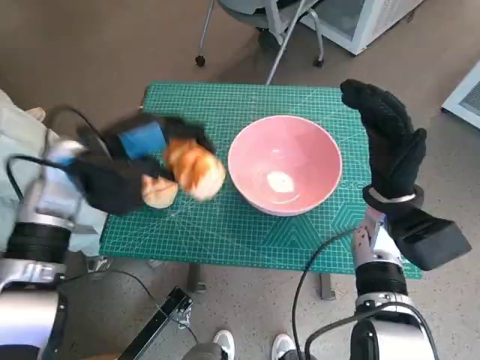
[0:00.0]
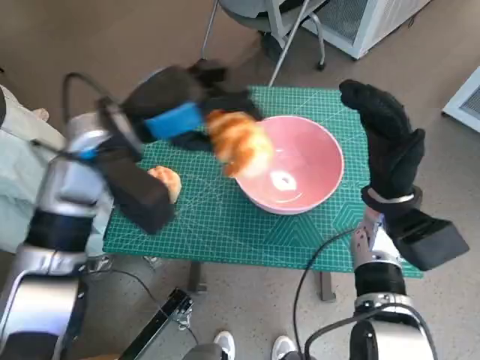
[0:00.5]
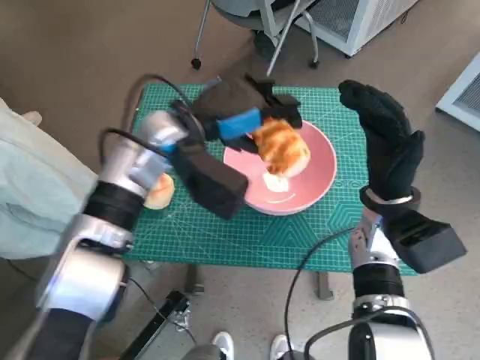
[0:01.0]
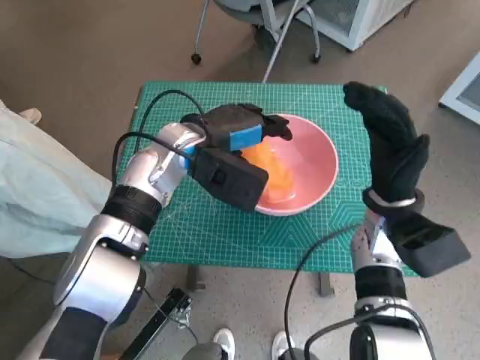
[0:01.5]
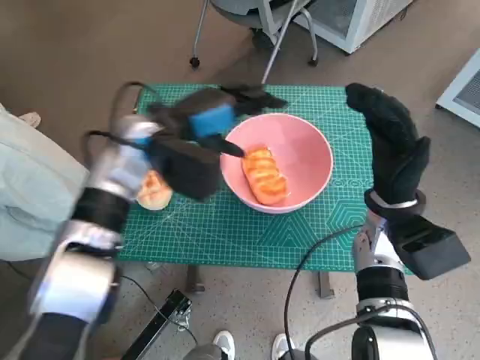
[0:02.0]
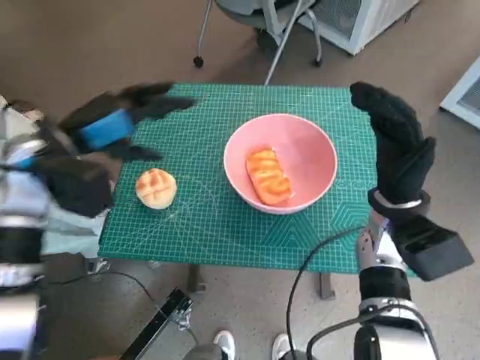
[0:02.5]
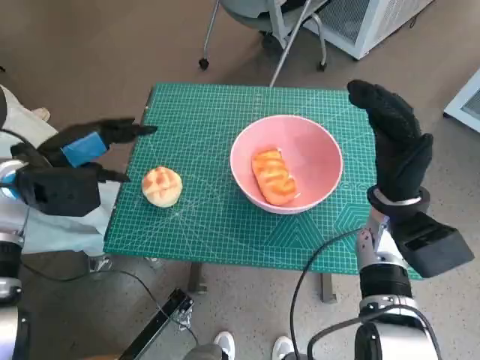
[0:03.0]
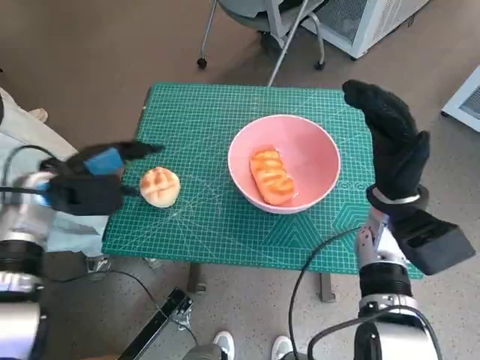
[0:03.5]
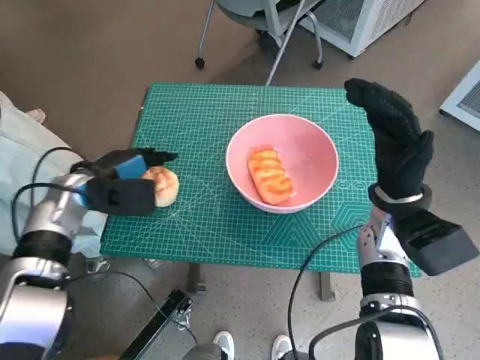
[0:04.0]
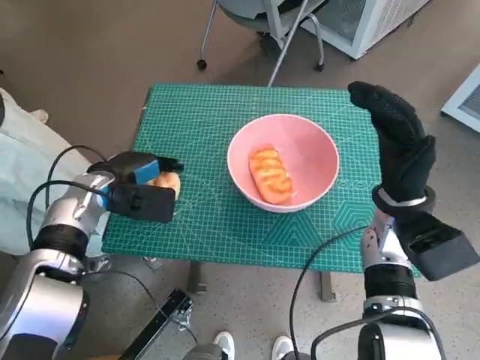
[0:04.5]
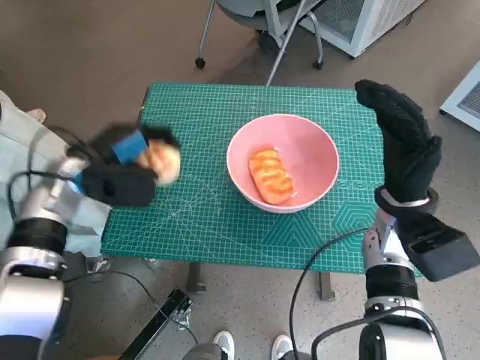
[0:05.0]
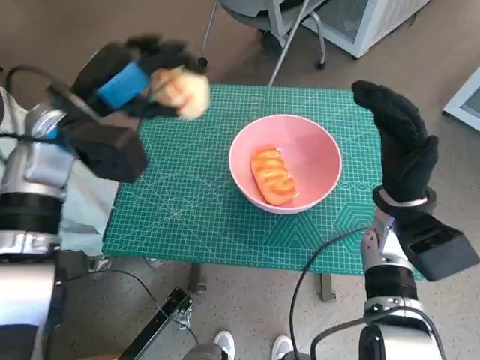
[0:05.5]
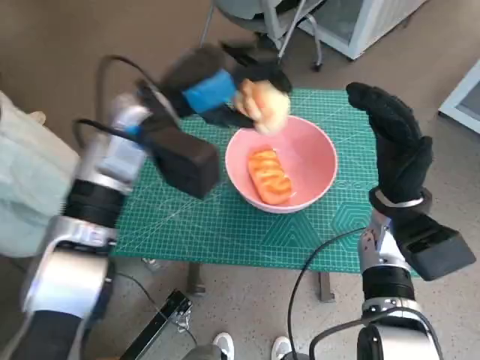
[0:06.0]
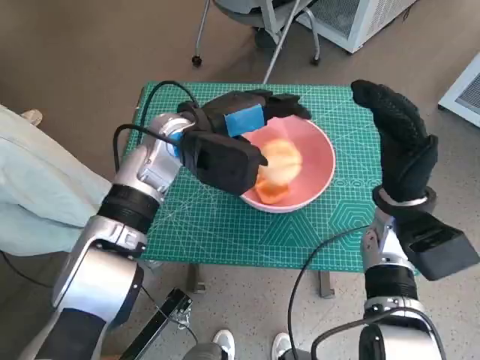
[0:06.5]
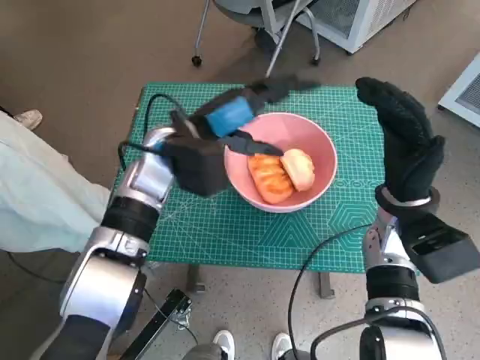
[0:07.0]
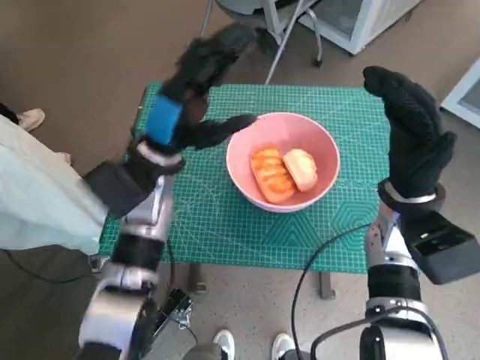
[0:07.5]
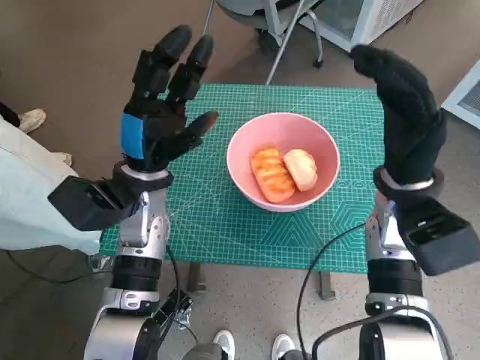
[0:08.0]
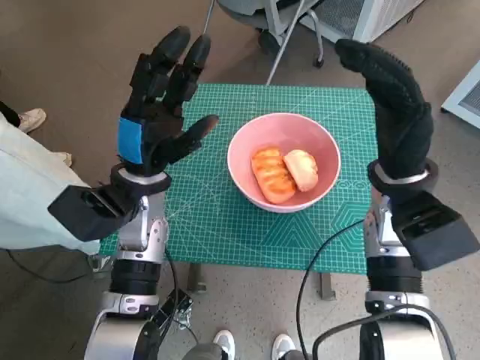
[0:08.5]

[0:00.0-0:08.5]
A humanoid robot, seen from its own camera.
Task of the whole recording: Push the bowl to the center of the table and put the bread into the bowl.
Step, 0:00.0 to 0:01.5: Place the long bread in pink bowl with left hand.
Step, 0:02.0 to 0:04.5: Grasp the round bread with left hand.
Step, 0:05.0 to 0:06.0: Place the round bread in pink bowl with left hand.
0:00.0 to 0:02.0: The left hand heads to the right, covering approximately 10 cm.
0:02.0 to 0:04.0: The left hand moves to the left and downward, roughly 15 cm.
0:04.0 to 0:06.5: The left hand is displaced to the right and upward by about 20 cm.
0:06.5 to 0:08.5: The left hand shifts roughly 10 cm to the left, backward and downward. Meanwhile the right hand moves upward, roughly 5 cm.

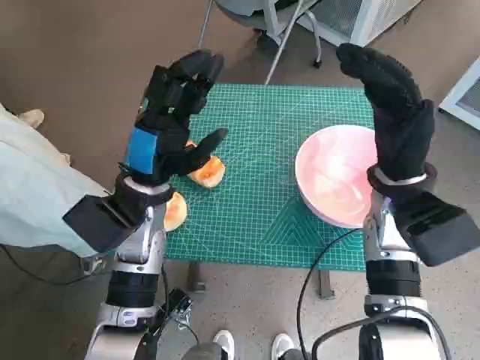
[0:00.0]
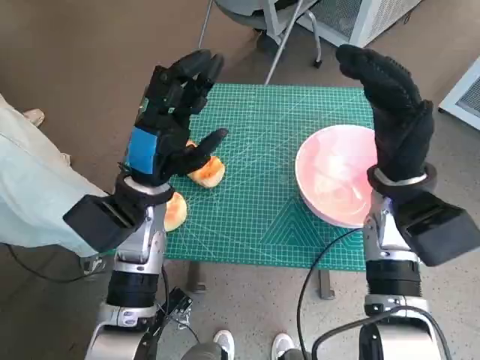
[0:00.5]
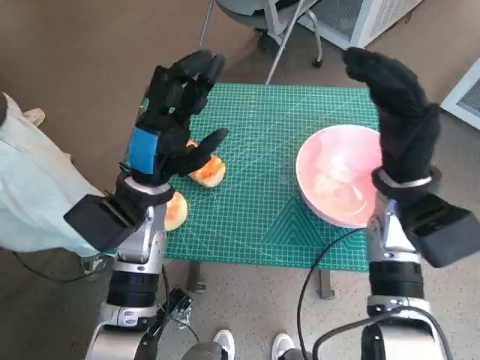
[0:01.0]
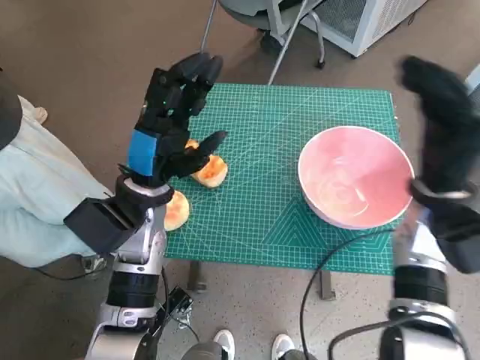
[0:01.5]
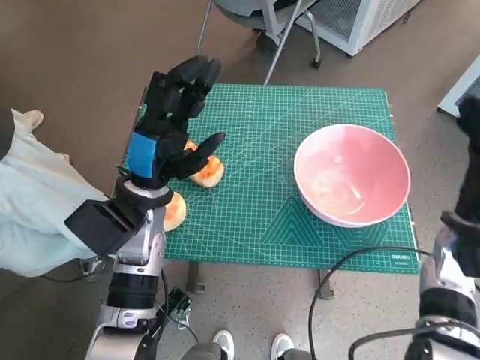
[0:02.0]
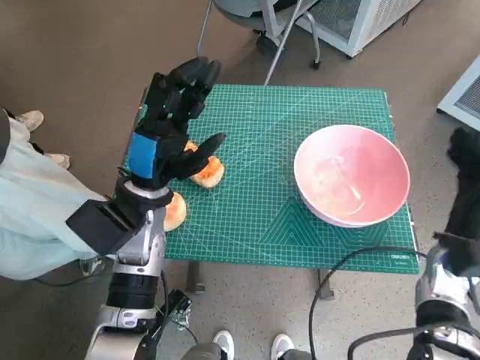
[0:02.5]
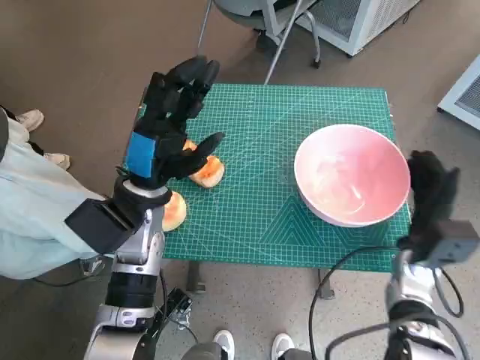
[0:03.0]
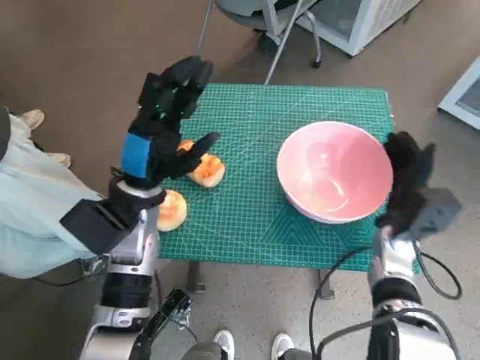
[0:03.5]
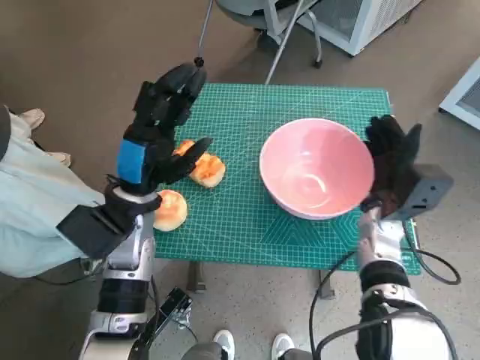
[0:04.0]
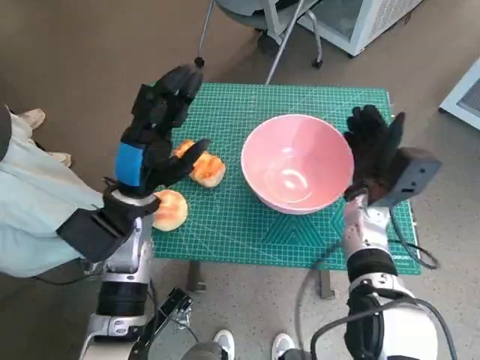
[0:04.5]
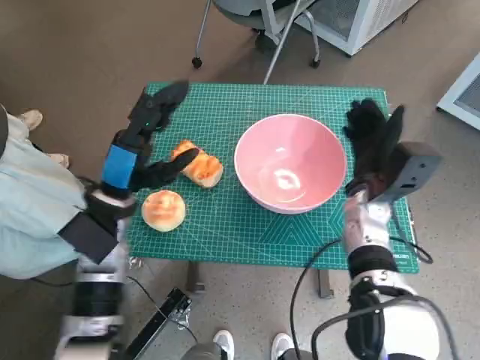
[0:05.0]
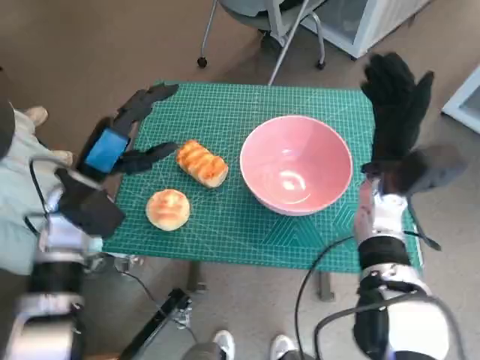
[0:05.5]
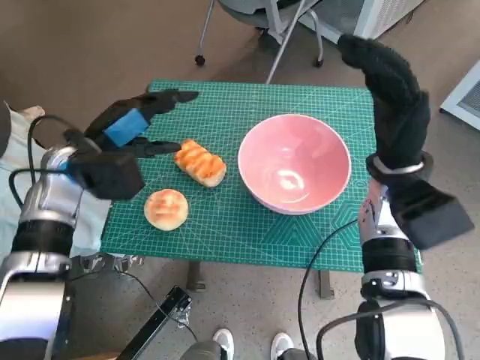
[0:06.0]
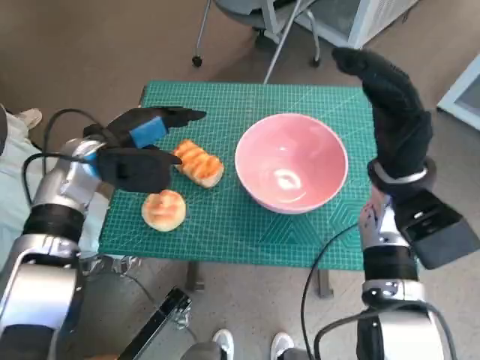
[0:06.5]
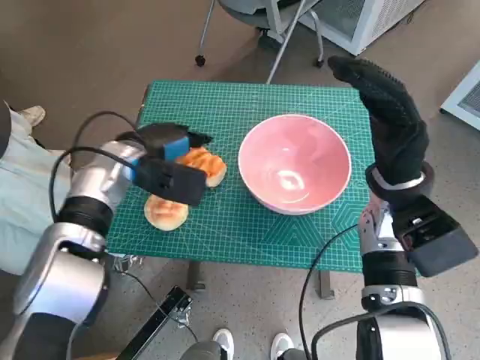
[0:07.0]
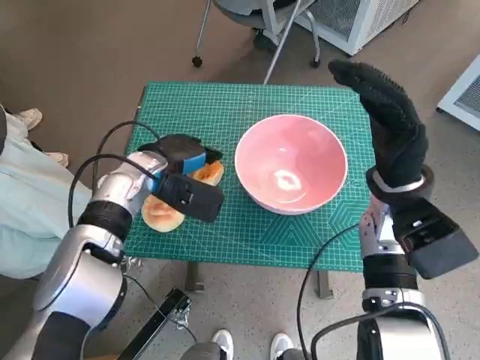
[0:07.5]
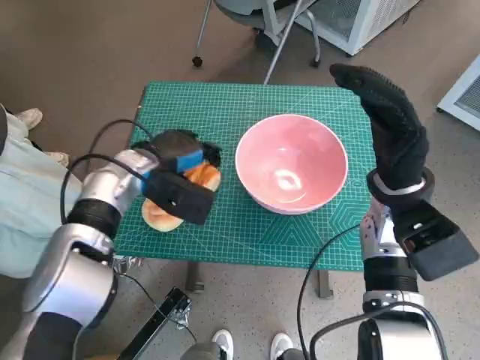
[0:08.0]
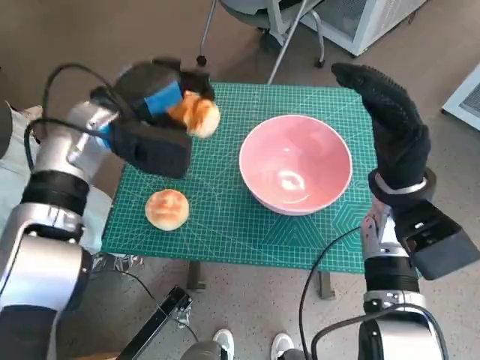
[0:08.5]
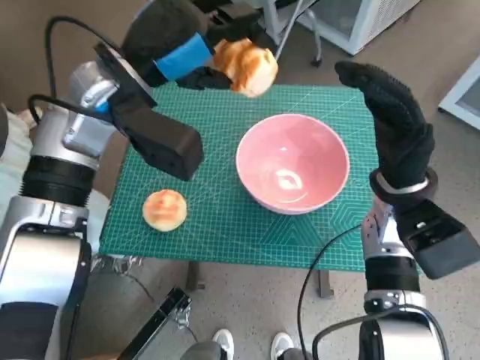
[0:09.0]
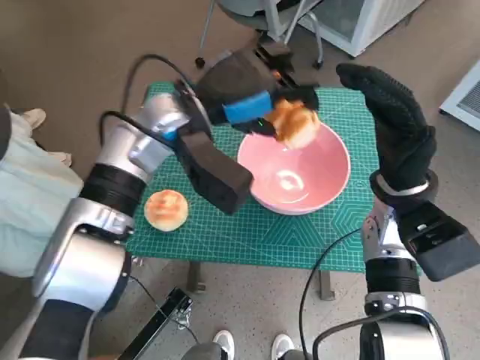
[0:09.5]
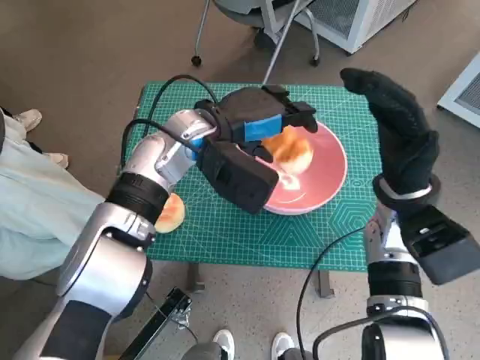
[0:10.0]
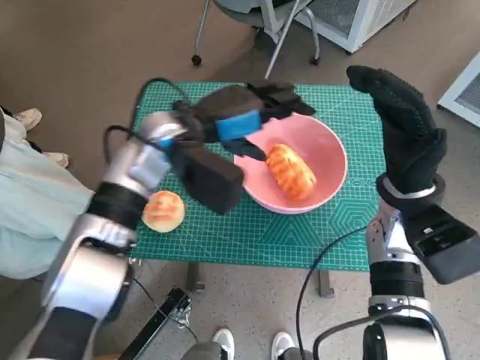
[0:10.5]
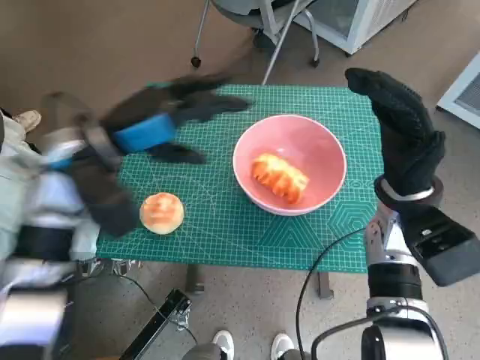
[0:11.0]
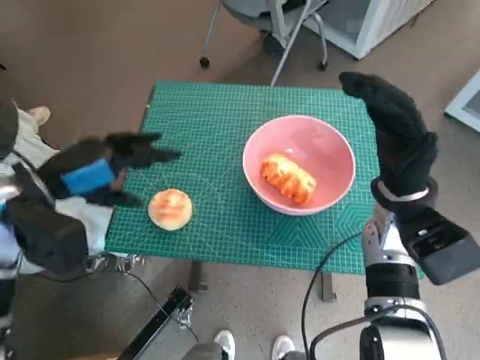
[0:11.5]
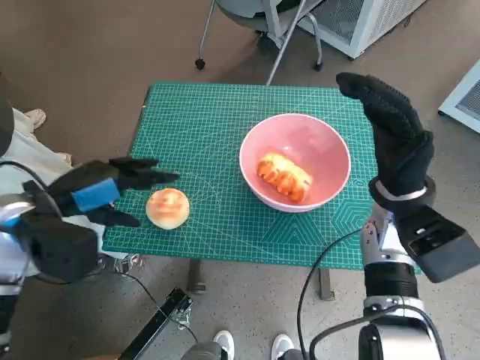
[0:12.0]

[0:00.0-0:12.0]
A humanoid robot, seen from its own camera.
Task of the whole recording: Push the bowl to the center of the table and put the bread into the bowl.
Step, 0:00.0 to 0:05.0: Move the pink bowl to the center of table with right hand.
Step, 0:05.5 to 0:07.5: Grasp the long bread with left hand.
Step, 0:08.0 to 0:10.0: Place the long bread in pink bowl with left hand.
0:02.0 to 0:04.0: The right hand goes roughly 10 cm to the left.
0:04.0 to 0:06.0: The left hand travels to the left by some 5 cm; the right hand travels upward by about 10 cm.
0:06.0 to 0:08.0: The left hand is displaced to the right by about 5 cm.
0:08.0 to 0:10.0: The left hand heads to the right and upward, covering some 10 cm.
0:10.0 to 0:12.0: The left hand is displaced to the left and backward by roughly 20 cm.

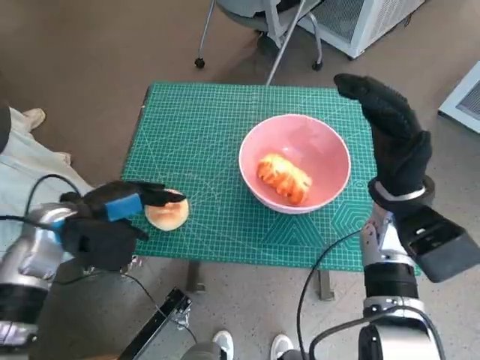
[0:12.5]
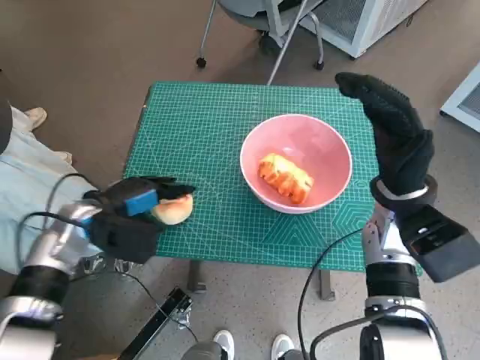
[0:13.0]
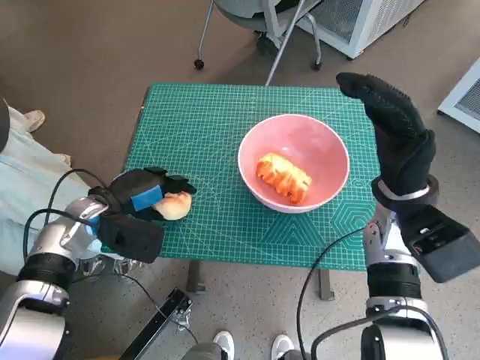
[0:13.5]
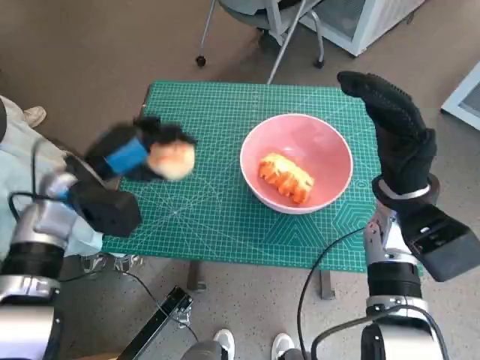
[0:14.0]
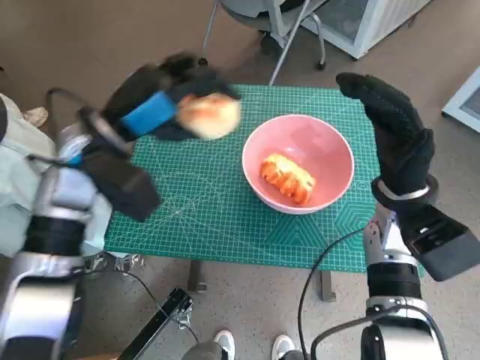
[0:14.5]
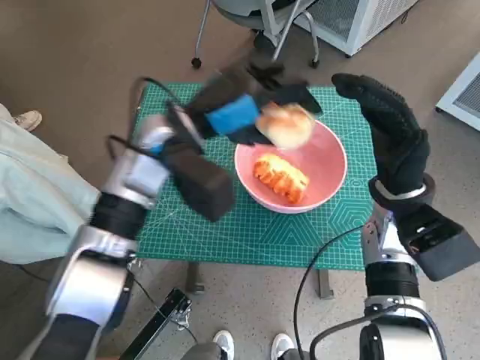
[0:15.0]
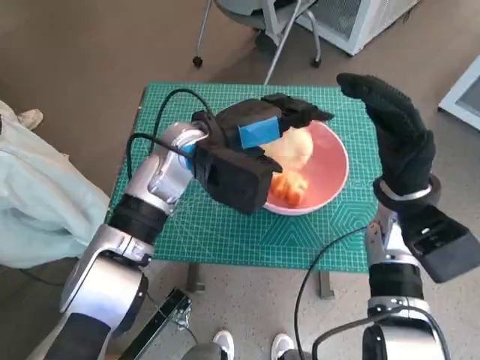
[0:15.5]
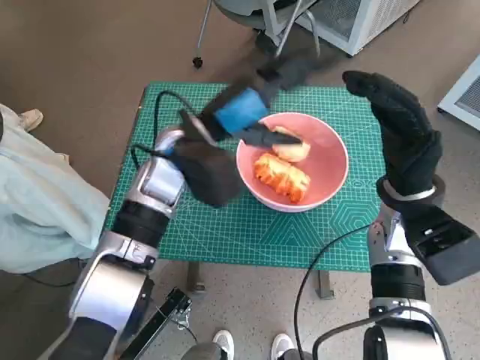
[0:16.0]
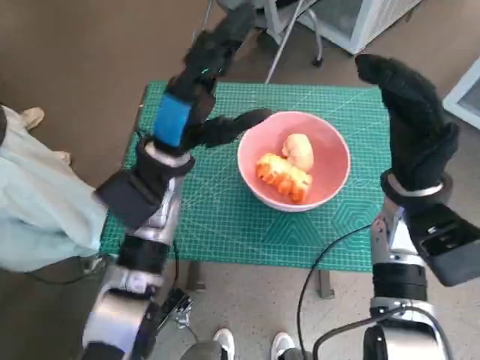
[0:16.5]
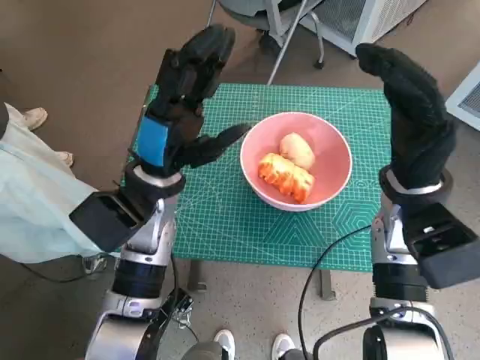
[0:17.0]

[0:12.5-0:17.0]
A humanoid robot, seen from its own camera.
Task of the whole recording: Push the bowl to the center of the table and put the bread into the bowl.
Step, 0:13.5 to 0:15.5: Place the round bread in pink bowl with left hand.
0:12.5 to 0:14.5: The left hand heads upward, to the right and forward, covering approximately 15 cm.
0:14.5 to 0:17.0: The left hand heads to the right and downward, covering roughly 10 cm.
